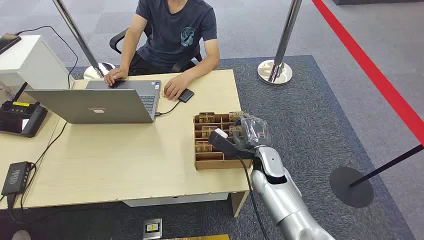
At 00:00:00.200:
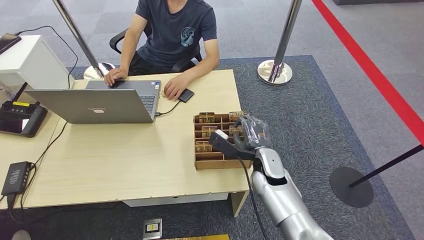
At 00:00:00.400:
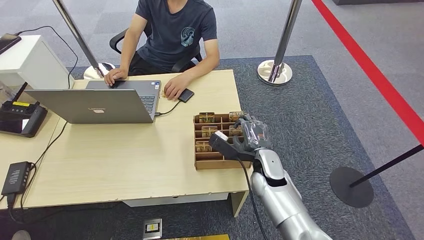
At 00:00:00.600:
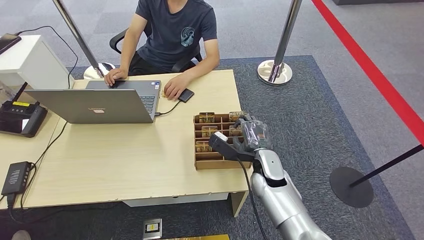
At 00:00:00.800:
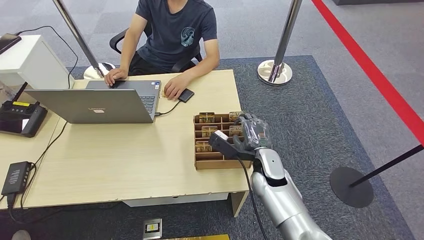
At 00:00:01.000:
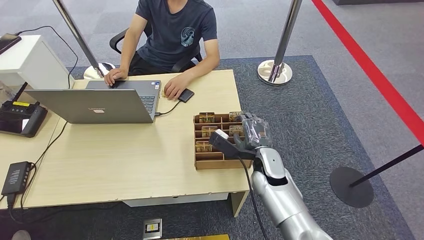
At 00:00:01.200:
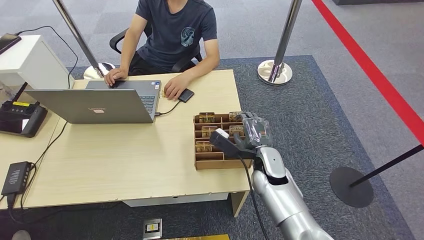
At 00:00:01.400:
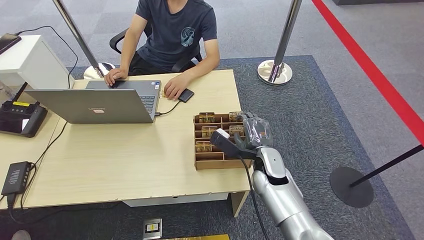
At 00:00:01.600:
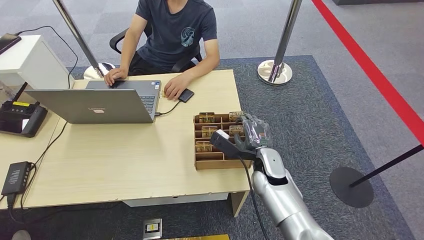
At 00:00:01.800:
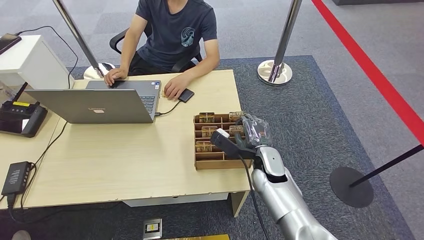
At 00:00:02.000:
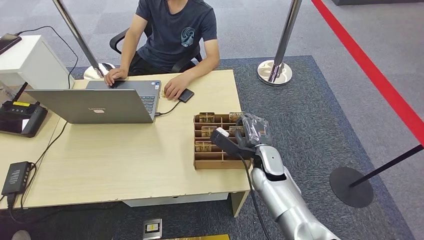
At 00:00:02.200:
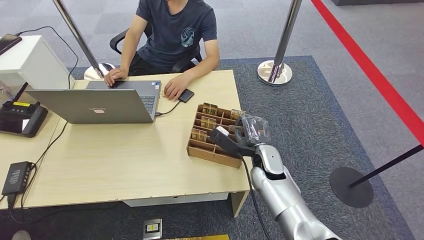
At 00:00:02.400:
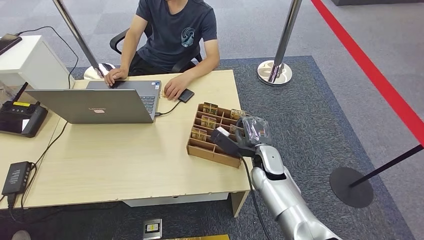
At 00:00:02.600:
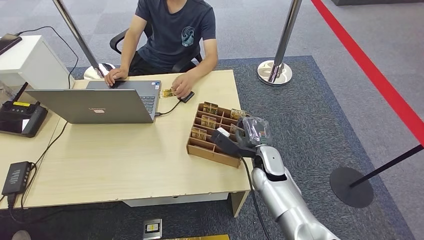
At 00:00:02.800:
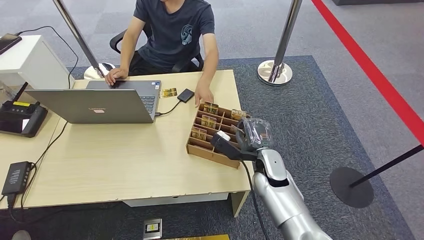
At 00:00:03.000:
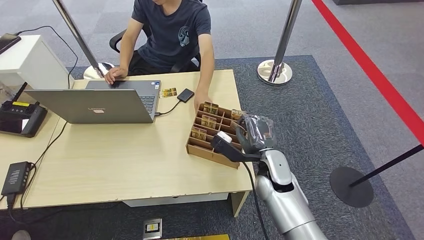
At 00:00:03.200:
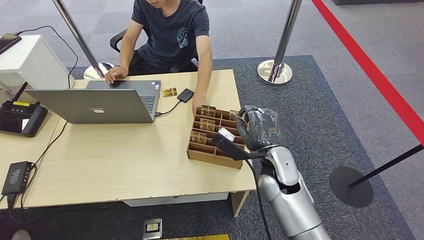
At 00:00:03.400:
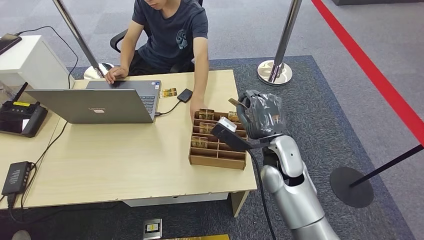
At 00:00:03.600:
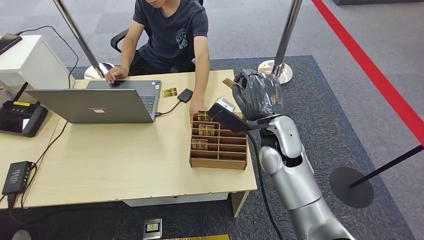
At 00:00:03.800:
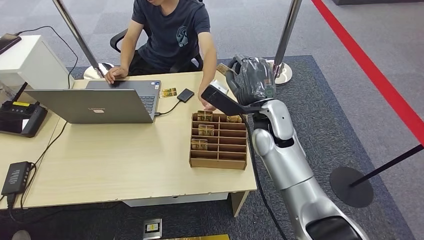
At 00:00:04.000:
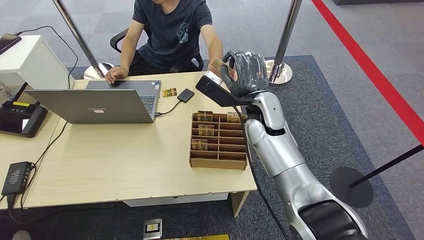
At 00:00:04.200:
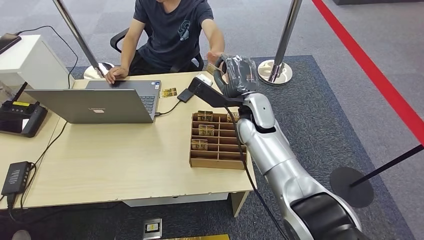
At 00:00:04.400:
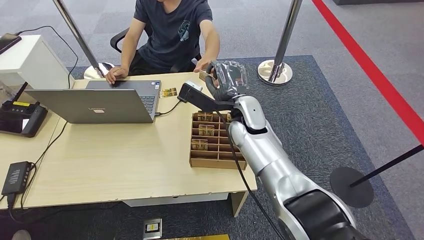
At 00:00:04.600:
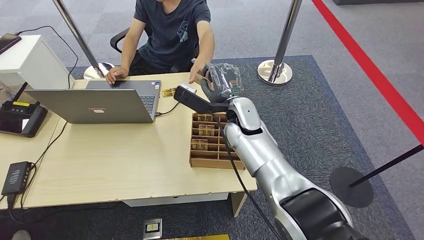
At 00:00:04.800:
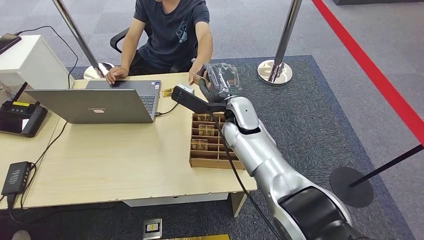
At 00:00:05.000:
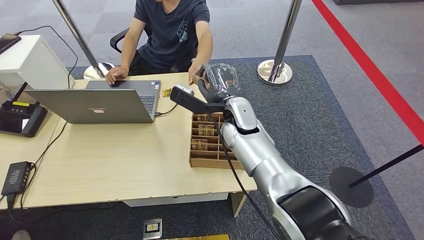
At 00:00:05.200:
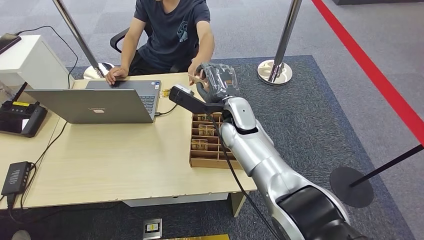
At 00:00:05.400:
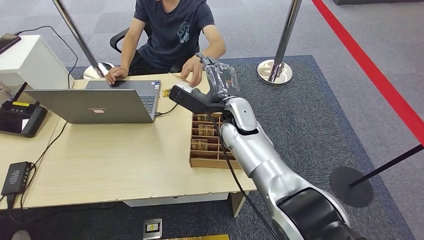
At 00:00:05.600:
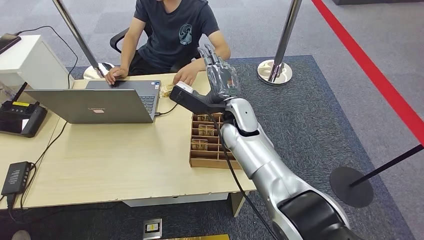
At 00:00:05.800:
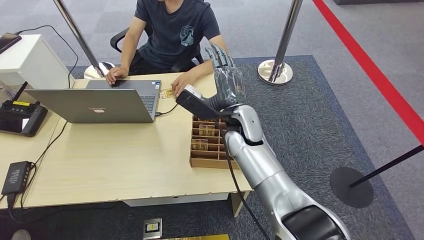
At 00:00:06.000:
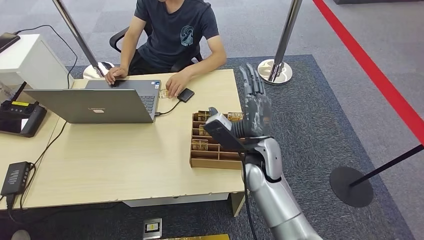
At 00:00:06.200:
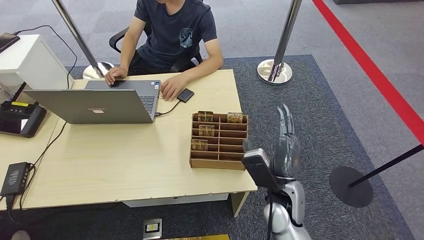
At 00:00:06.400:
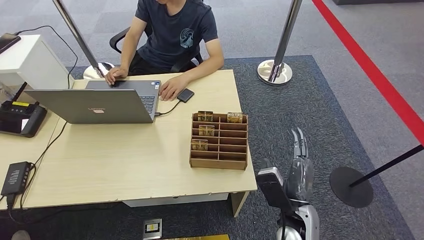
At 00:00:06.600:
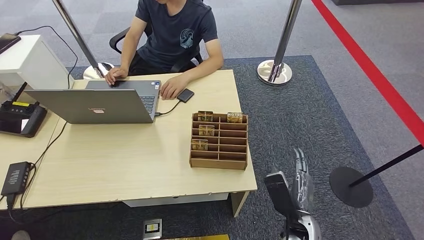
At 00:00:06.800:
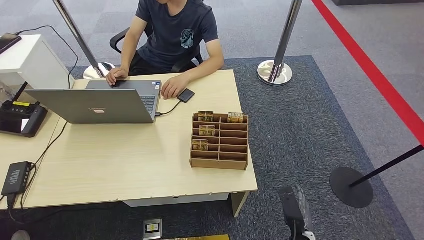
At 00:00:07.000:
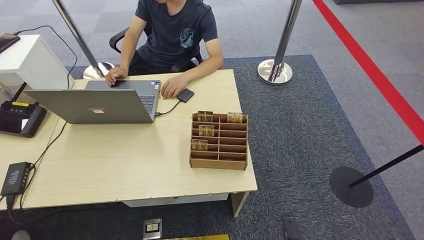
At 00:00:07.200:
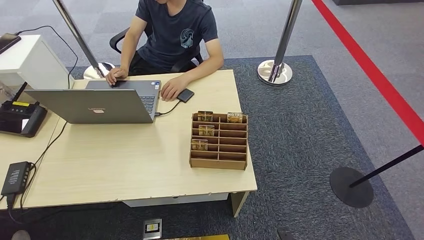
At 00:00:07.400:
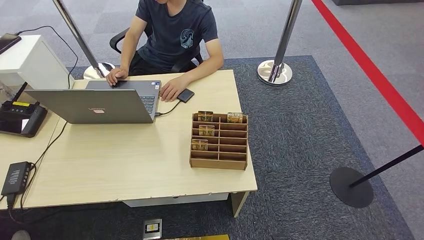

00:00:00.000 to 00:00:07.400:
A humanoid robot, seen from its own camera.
Step, 00:00:00.000 to 00:00:03.400: Pick up the key card from the card box.
Step, 00:00:03.600 to 00:00:07.400: Hand the key card to the target.
00:00:01.400 to 00:00:03.000: The hands move only a little.
00:00:03.000 to 00:00:04.400: The right hand heads upward, forward and to the left, covering roughly 15 cm.
00:00:04.400 to 00:00:06.000: The right hand moves backward, some 10 cm.
00:00:06.000 to 00:00:07.400: The right hand heads backward, downward and to the right, covering some 40 cm.

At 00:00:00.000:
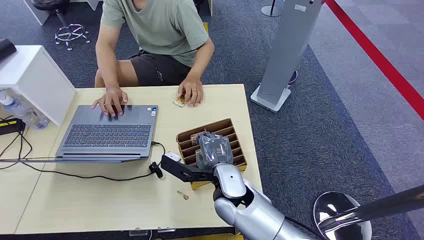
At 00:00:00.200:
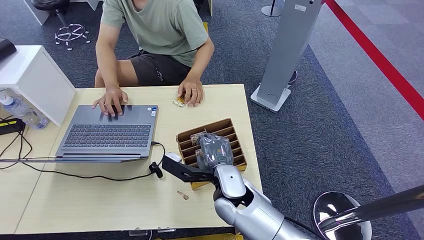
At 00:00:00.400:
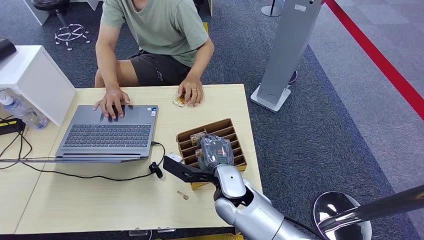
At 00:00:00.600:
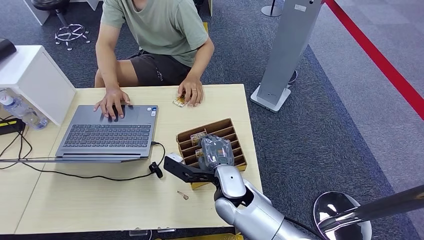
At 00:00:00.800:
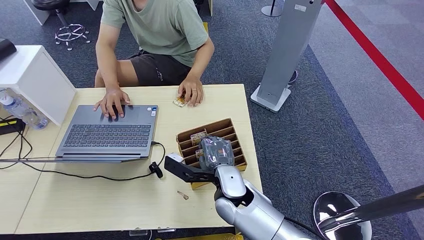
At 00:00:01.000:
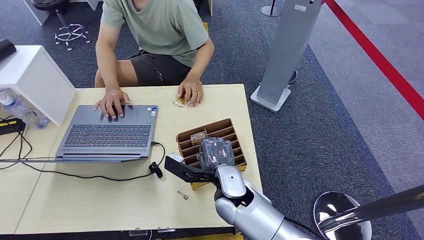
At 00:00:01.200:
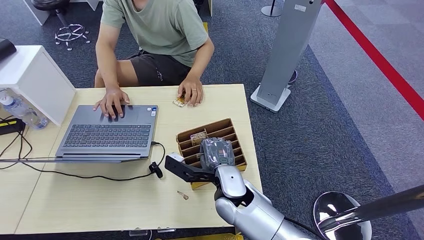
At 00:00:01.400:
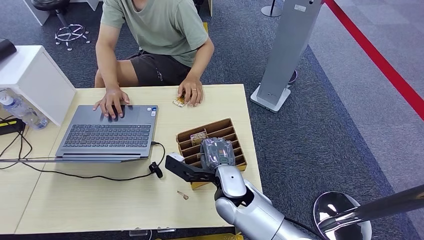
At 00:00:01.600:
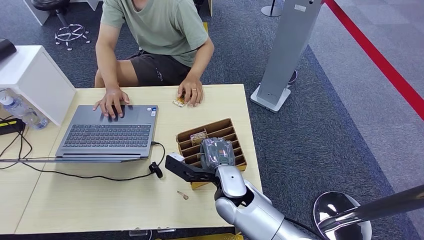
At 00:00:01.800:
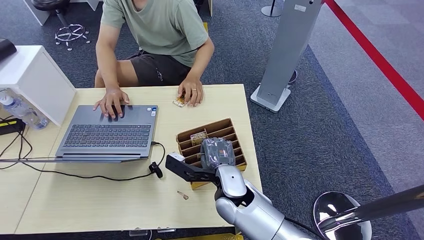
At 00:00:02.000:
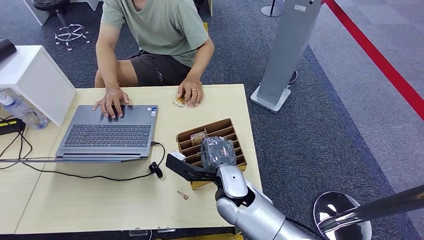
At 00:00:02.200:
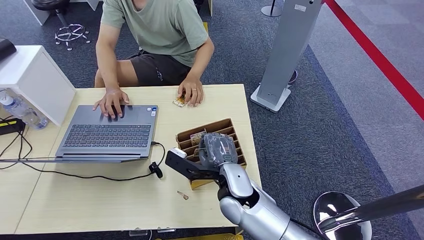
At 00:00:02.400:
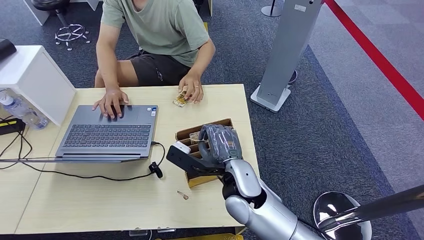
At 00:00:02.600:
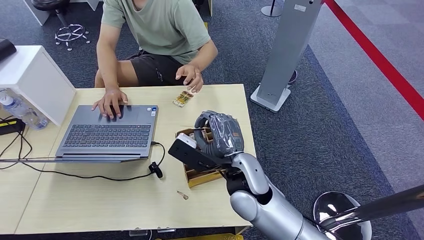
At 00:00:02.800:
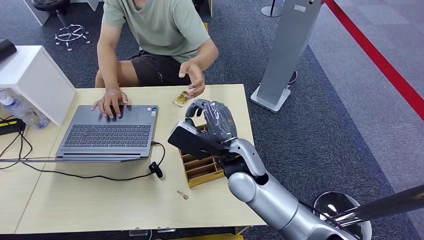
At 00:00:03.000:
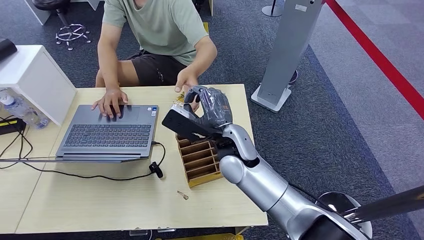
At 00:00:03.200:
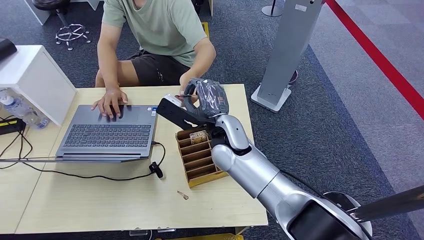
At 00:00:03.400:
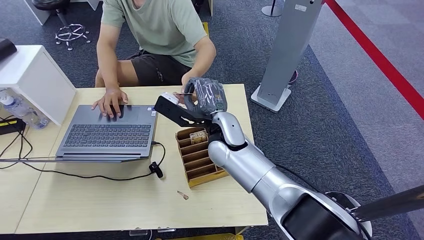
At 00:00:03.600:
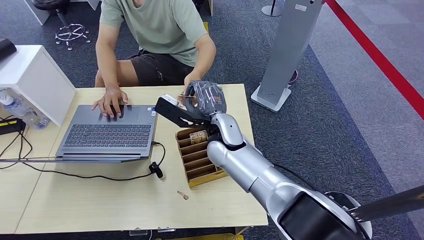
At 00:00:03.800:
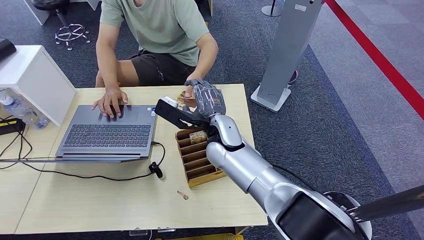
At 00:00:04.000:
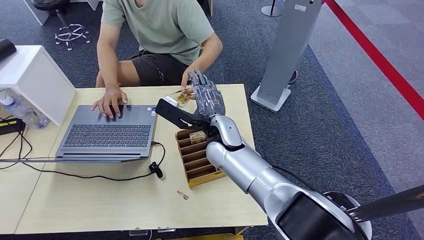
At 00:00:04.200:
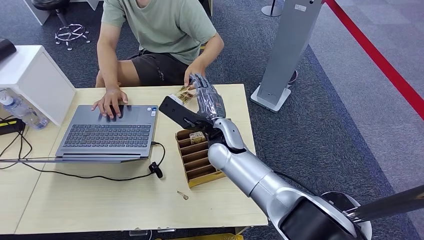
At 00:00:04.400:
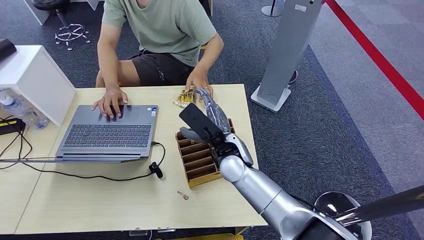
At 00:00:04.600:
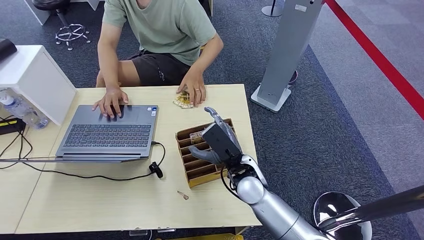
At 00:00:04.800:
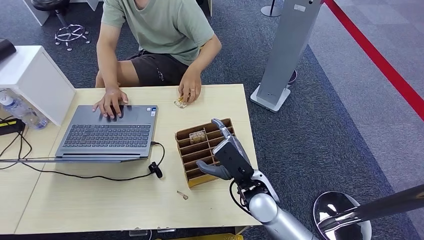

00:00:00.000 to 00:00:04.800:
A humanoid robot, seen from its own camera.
Step, 00:00:00.000 to 00:00:02.800: Pick up the key card from the card box.
Step, 00:00:03.000 to 00:00:04.800: Hand the key card to the target.
00:00:01.600 to 00:00:03.200: The right hand moves upward and forward, roughly 10 cm.
00:00:03.200 to 00:00:04.800: The right hand goes some 15 cm downward, backward and to the right.
